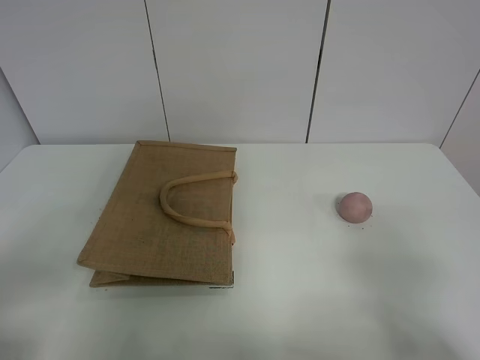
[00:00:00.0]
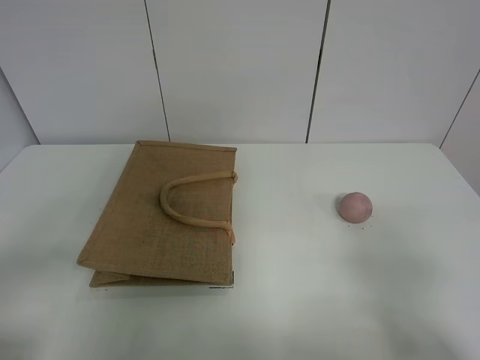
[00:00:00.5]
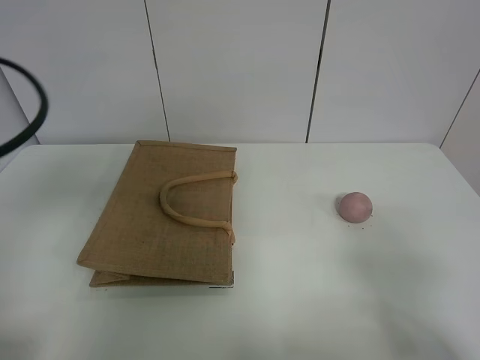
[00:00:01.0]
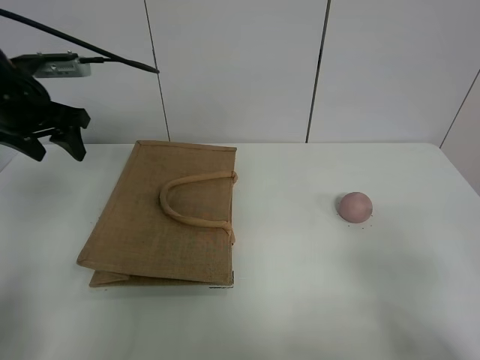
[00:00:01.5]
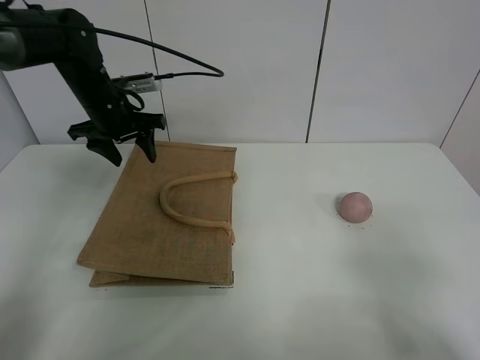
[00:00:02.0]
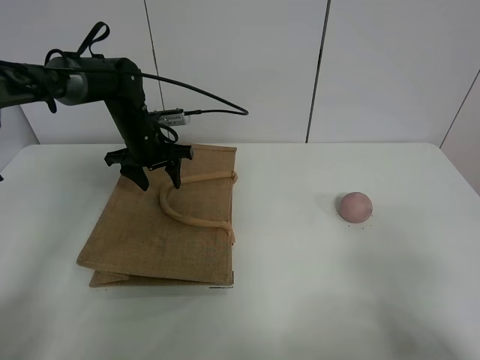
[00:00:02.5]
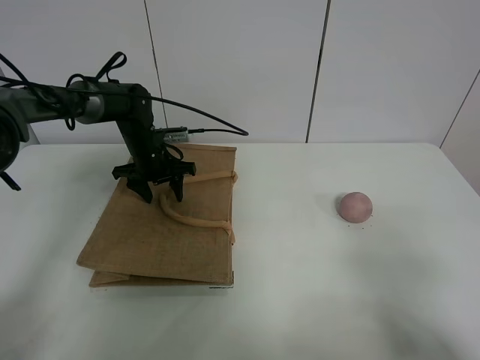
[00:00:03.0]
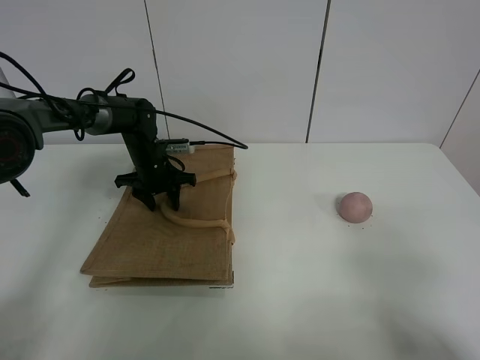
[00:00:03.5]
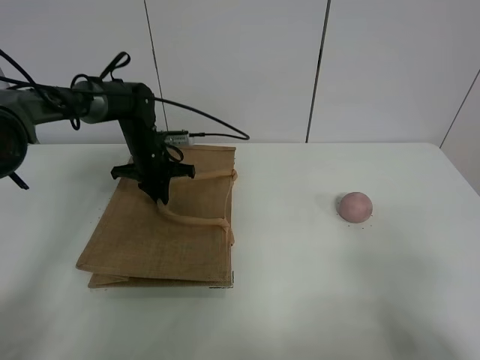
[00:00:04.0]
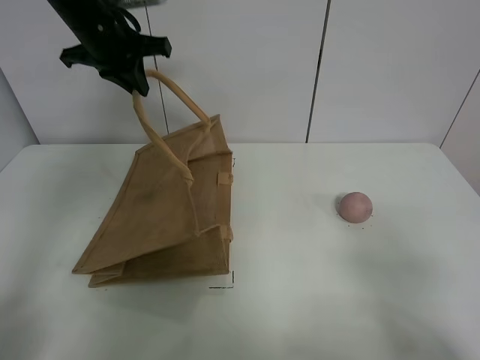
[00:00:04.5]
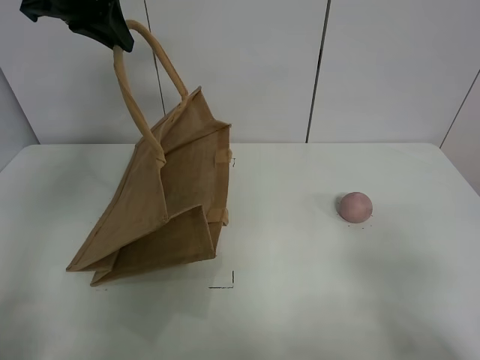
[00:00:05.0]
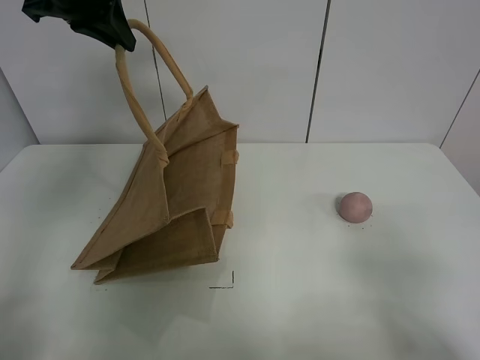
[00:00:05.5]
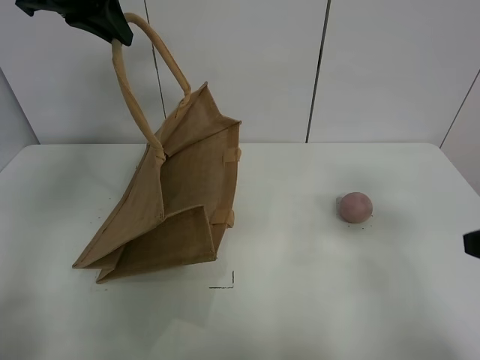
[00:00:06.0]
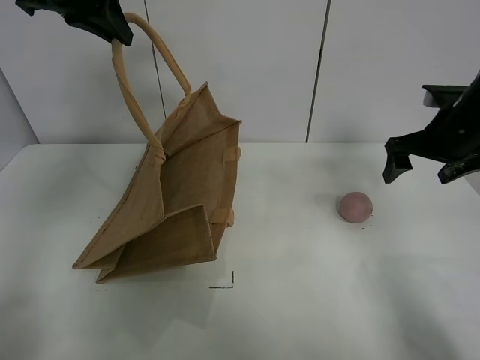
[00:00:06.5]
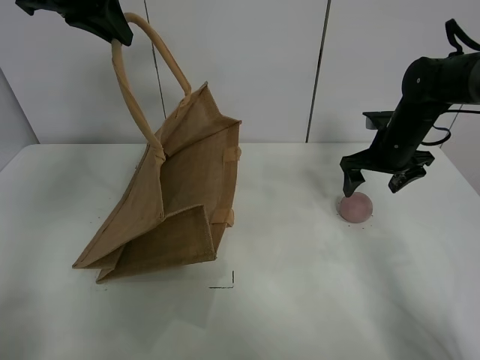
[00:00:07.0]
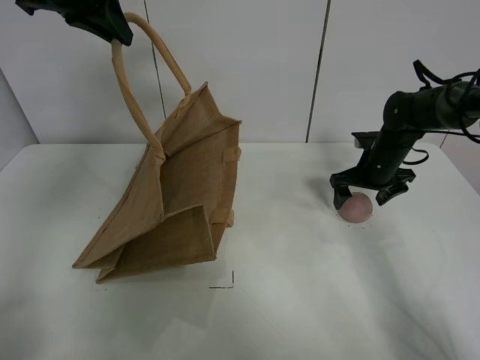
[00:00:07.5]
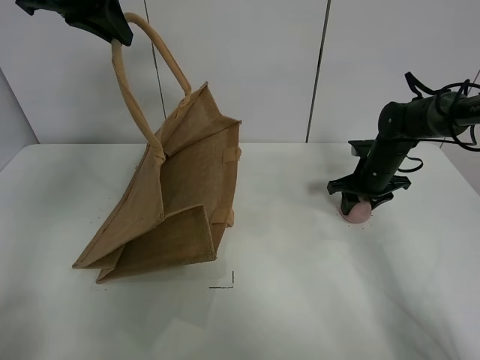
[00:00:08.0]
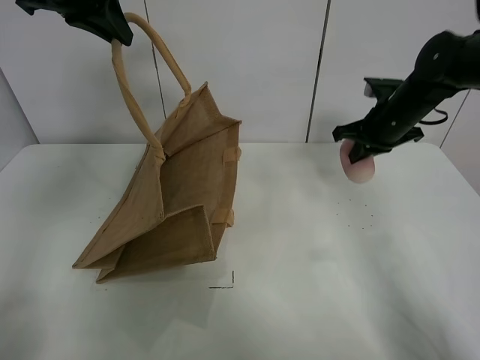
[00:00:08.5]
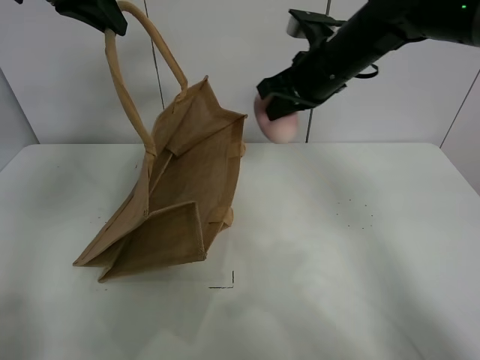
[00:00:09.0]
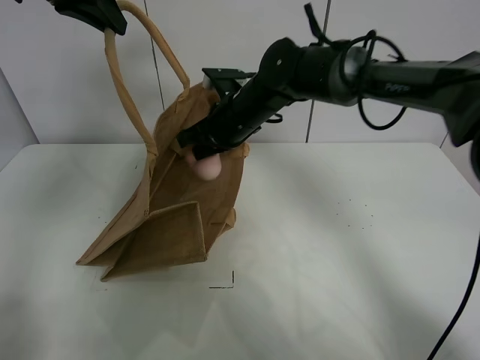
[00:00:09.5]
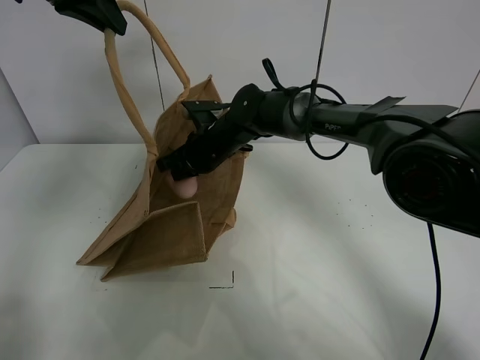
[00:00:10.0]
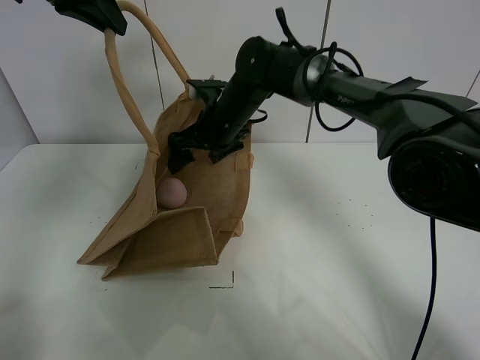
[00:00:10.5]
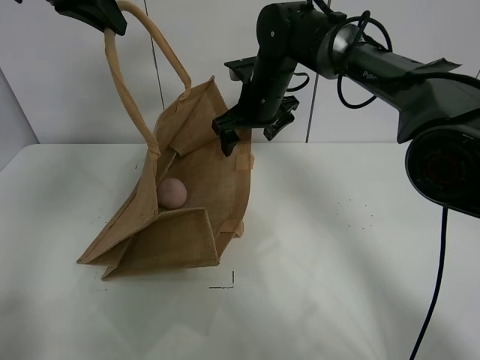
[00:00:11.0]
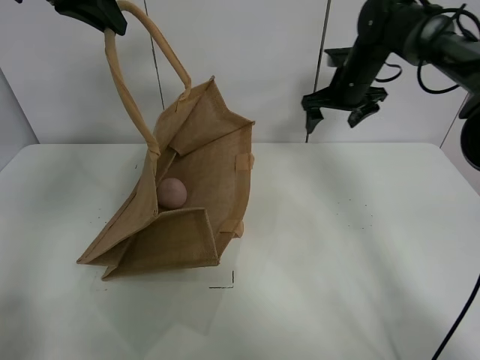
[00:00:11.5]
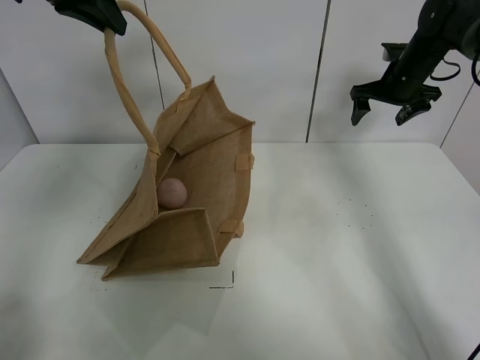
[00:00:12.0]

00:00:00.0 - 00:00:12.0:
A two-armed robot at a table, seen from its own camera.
Task of the whole recording: open the brown linen bag and put the peach in the bag.
Step, 00:00:00.0 - 00:00:04.5: Lift the handbag with left gripper.
Step, 00:00:05.0 - 00:00:08.0: Grasp the peach with right gripper.
Step, 00:00:08.5 - 00:00:11.0: Place the peach in the handbag with right gripper.
00:00:00.0 - 00:00:02.0: The left gripper shifts some 40 cm forward.
00:00:02.0 - 00:00:04.0: The left gripper is displaced downward by some 10 cm, and closes up.
00:00:04.0 - 00:00:06.0: The right gripper goes some 10 cm forward. The left gripper travels upward by roughly 30 cm.
00:00:06.0 - 00:00:08.0: The right gripper heads forward and downward, covering about 35 cm, and closes its fingers.
00:00:08.0 - 00:00:10.0: The right gripper shifts about 30 cm to the left.
00:00:10.0 - 00:00:12.0: The right gripper goes some 30 cm to the right, and opens.

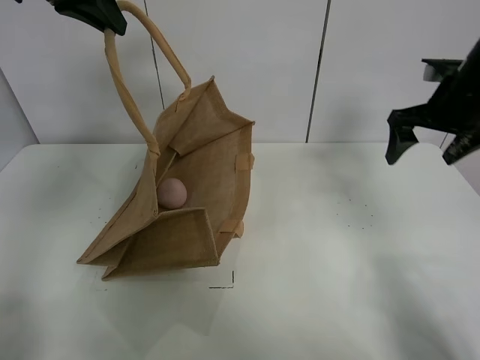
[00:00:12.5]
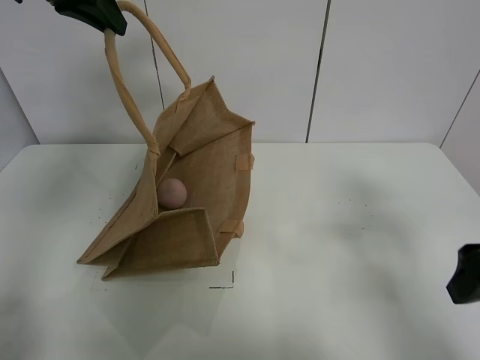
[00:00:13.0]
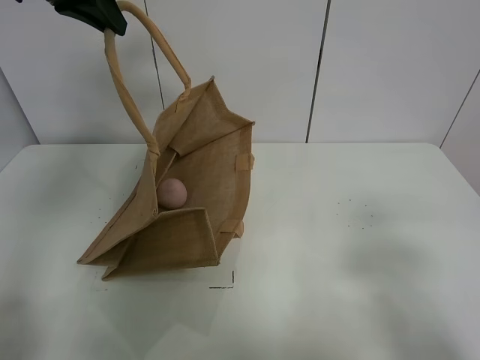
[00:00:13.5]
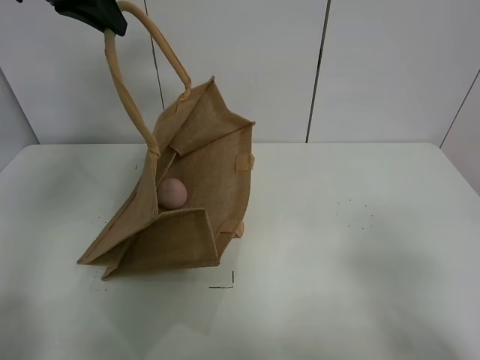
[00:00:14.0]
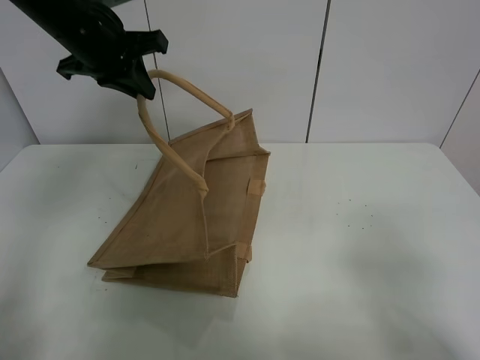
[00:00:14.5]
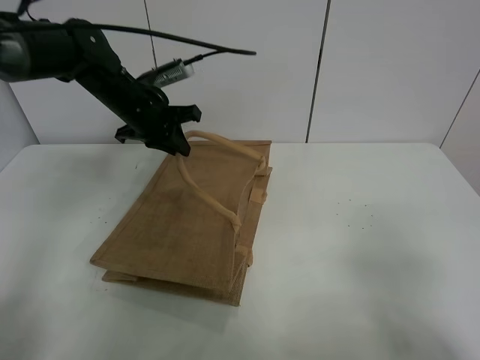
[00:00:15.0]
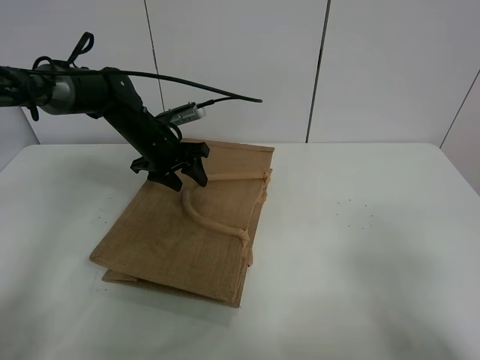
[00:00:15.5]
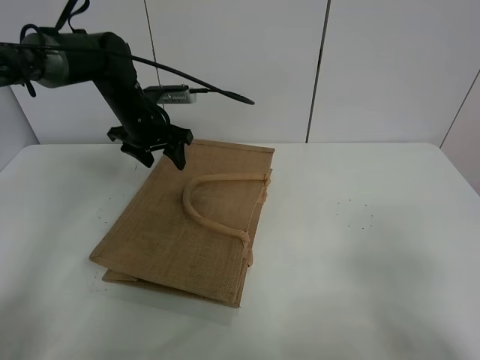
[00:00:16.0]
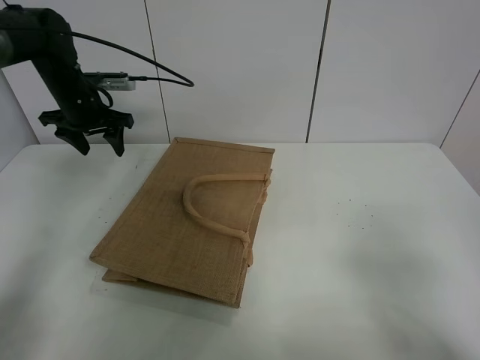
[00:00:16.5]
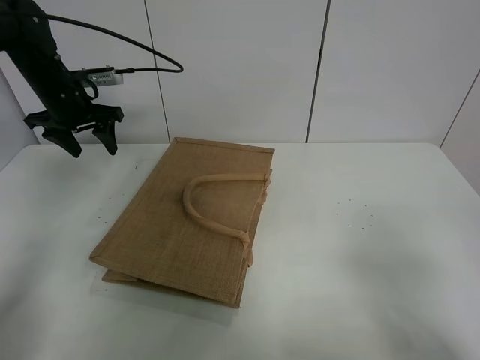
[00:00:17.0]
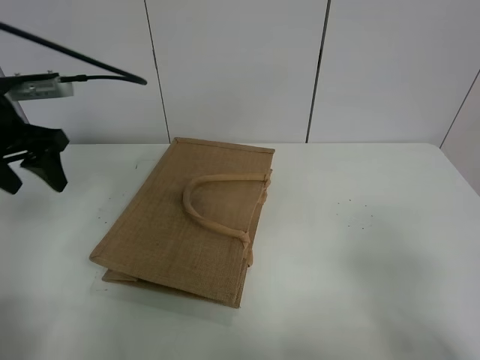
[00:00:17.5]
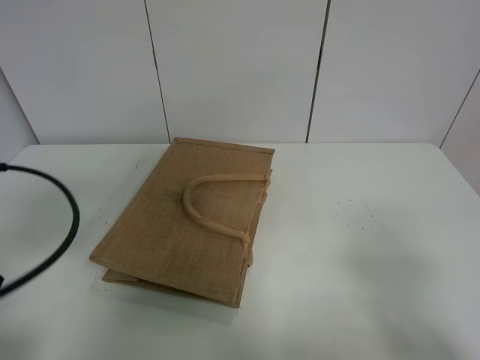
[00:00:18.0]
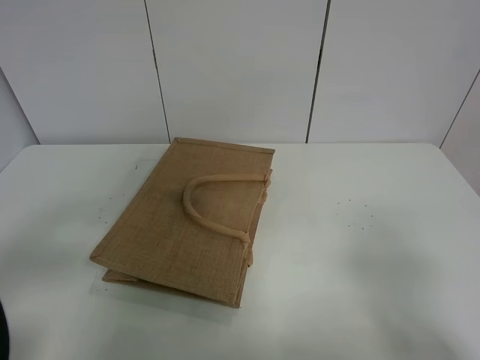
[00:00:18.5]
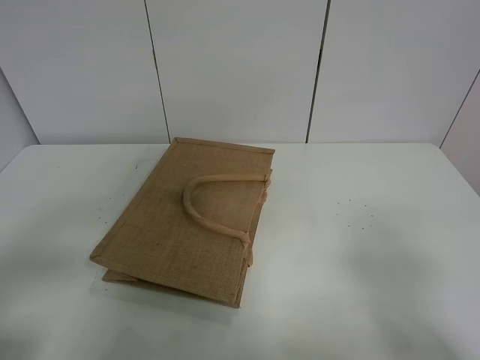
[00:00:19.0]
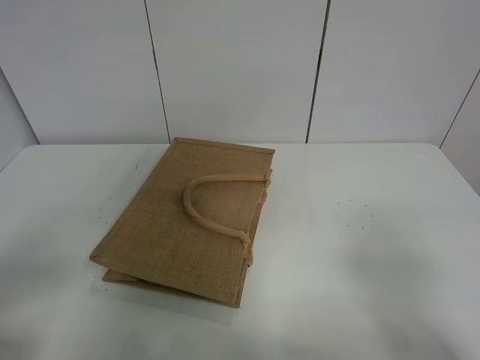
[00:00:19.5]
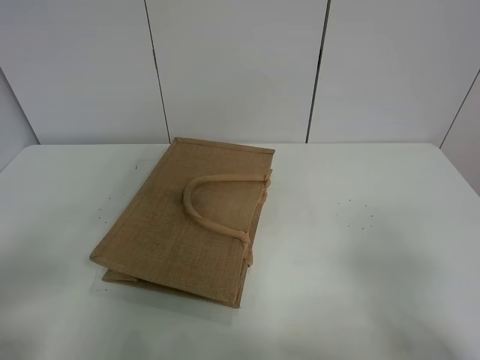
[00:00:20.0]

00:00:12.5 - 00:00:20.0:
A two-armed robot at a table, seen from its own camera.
Task of the whole recording: open the brown linen bag and put the peach in the bag.
Step, 00:00:12.5 - 00:00:16.0: Put down the handbag with left grippe.
00:00:12.5 - 00:00:14.5: The left gripper is displaced downward by some 10 cm. The right gripper shifts approximately 35 cm backward.
00:00:14.5 - 00:00:16.5: The left gripper is displaced downward, to the left and forward by some 15 cm, and opens.
00:00:16.5 - 00:00:18.0: The left gripper shifts approximately 35 cm backward.
00:00:18.0 - 00:00:20.0: The left gripper heads backward, covering approximately 10 cm.
